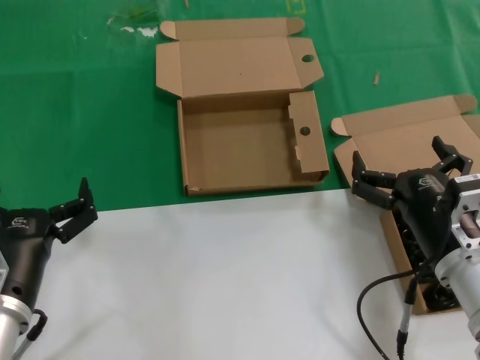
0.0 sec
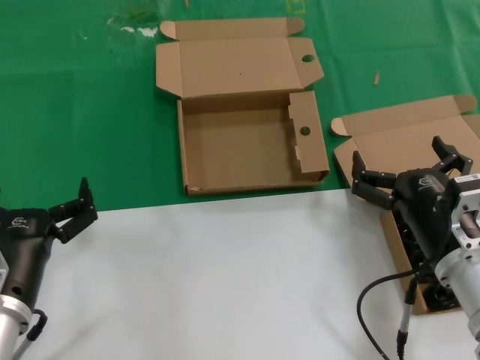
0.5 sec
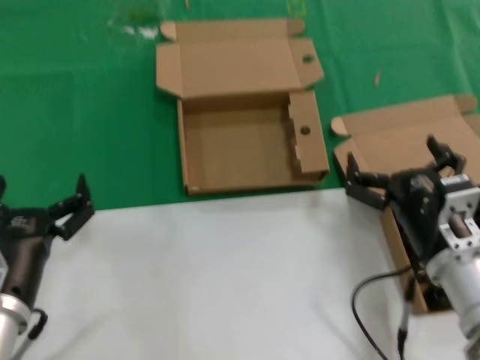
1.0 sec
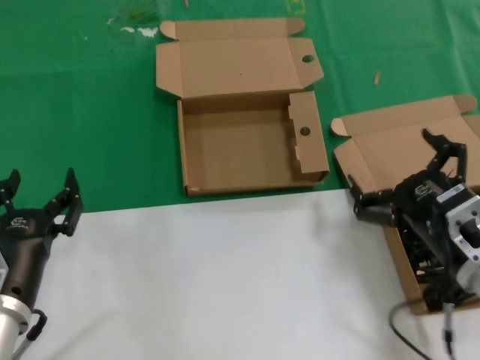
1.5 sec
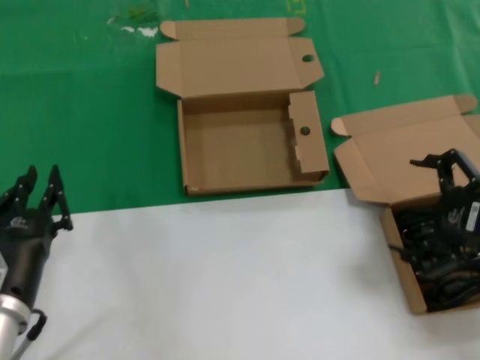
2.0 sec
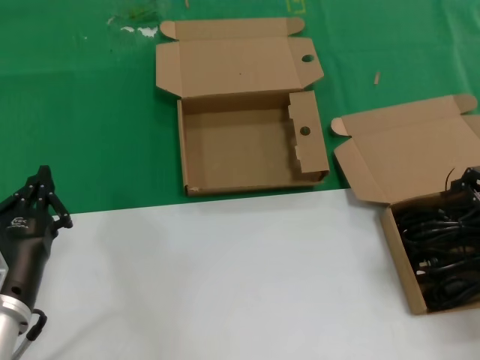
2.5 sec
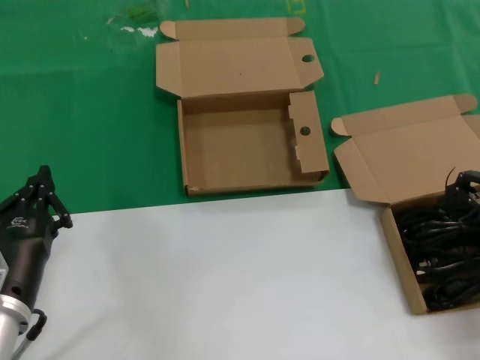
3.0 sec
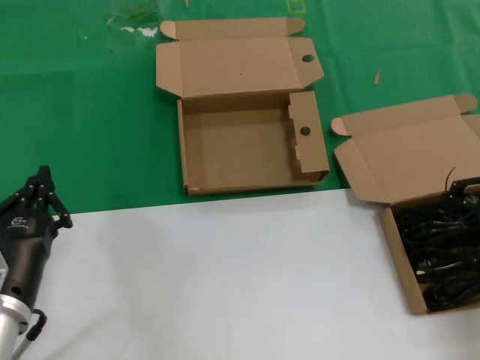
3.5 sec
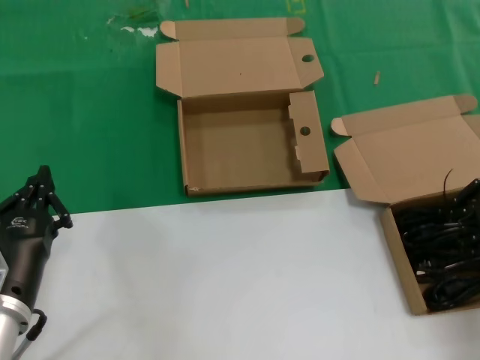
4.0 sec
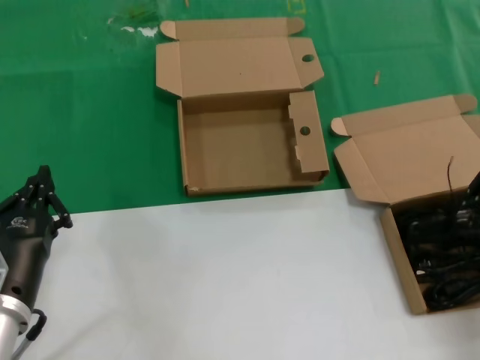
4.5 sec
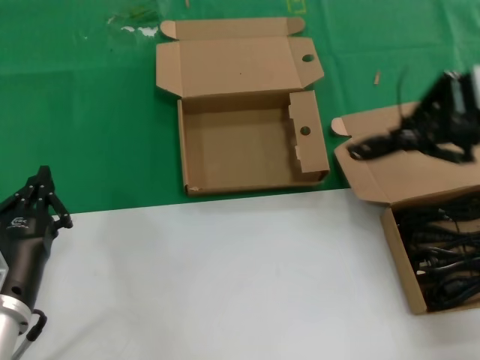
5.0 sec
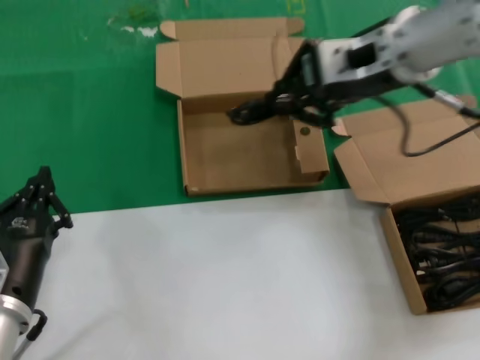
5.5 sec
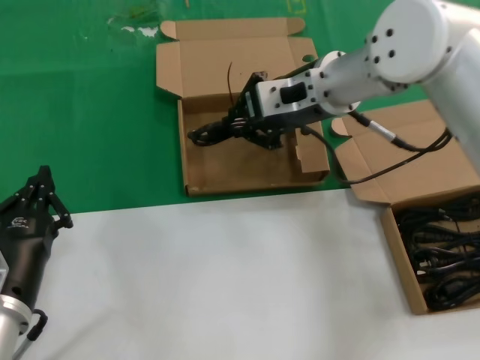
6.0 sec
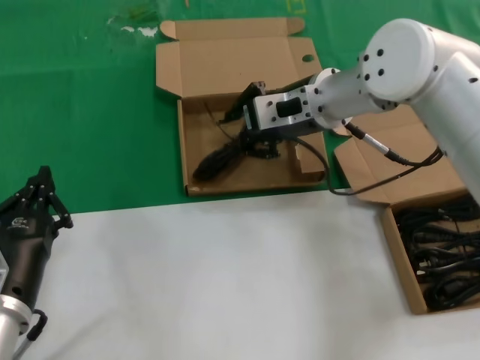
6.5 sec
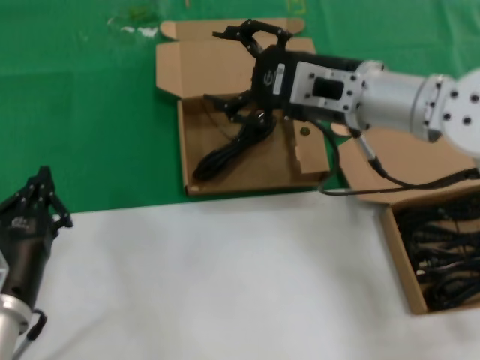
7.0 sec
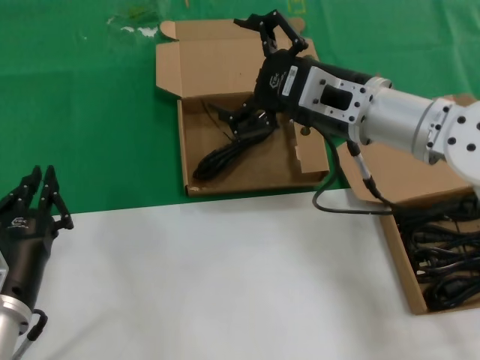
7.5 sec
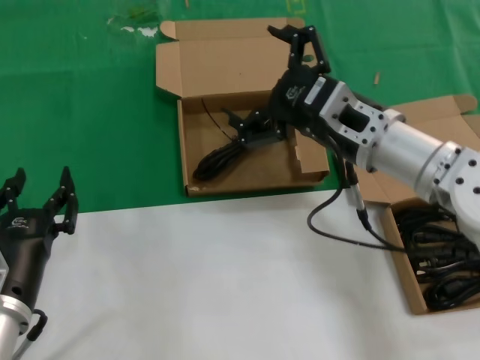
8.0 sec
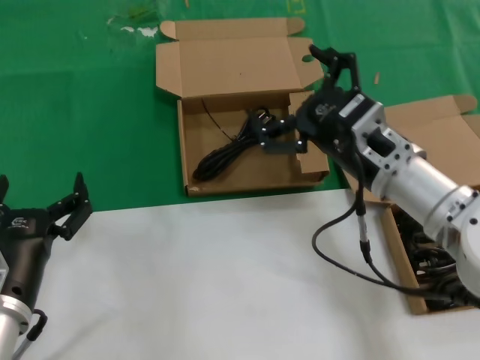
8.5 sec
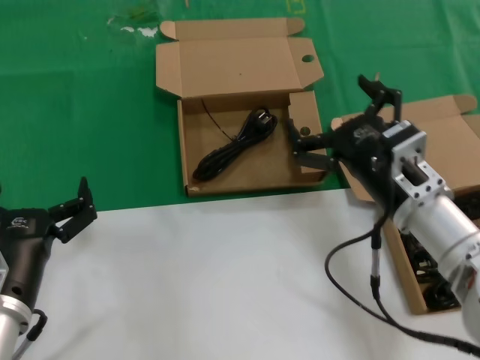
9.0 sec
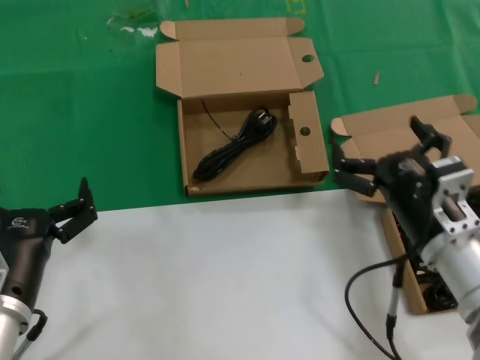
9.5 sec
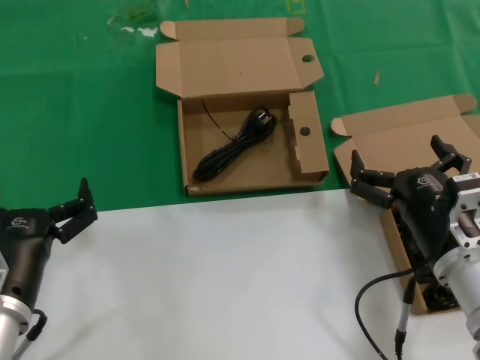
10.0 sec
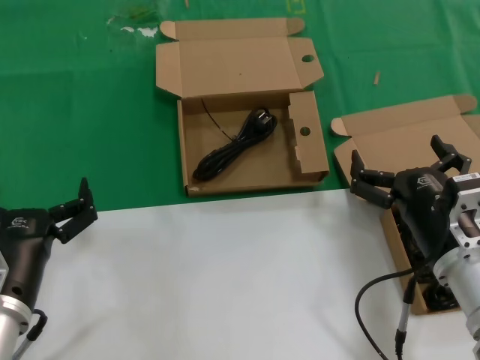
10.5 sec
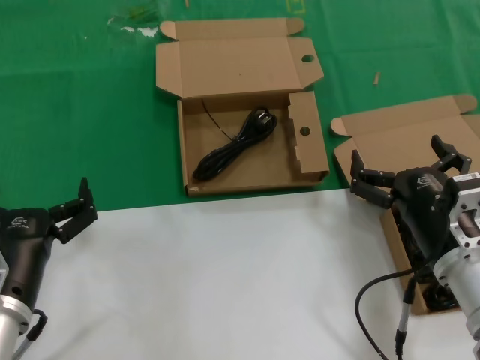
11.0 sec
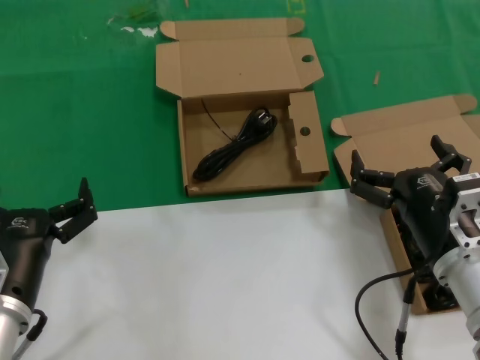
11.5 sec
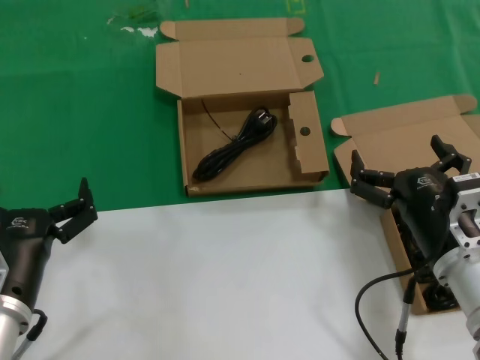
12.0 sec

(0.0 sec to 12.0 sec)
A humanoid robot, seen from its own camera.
Task of the whole recording: take the parts from the box containing them and put them into an empty box.
Step, 0.0 sec - 3.5 sec: Grasp the data cable.
Step, 4.5 sec - 6.5 sec: Place the data cable in the another box.
0.0 sec - 2.0 sec: The right hand goes some 15 cm upward and to the right.
2.0 sec - 4.0 sec: The right hand travels forward and to the right by roughly 10 cm.
4.0 sec - 6.0 sec: The right hand shifts some 30 cm to the left and forward.
6.0 sec - 8.0 sec: The right hand heads backward and downward, covering roughly 10 cm.
8.0 sec - 10.0 sec: The right hand shifts roughly 20 cm downward, backward and to the right.
10.0 sec - 12.0 sec: Both hands stay about where they are.

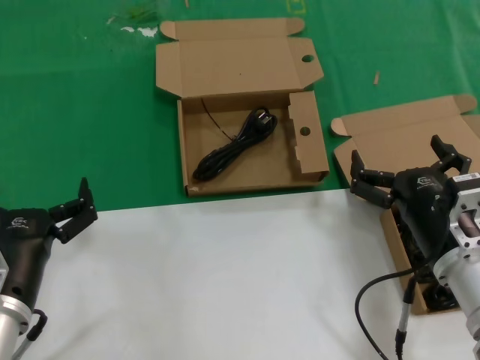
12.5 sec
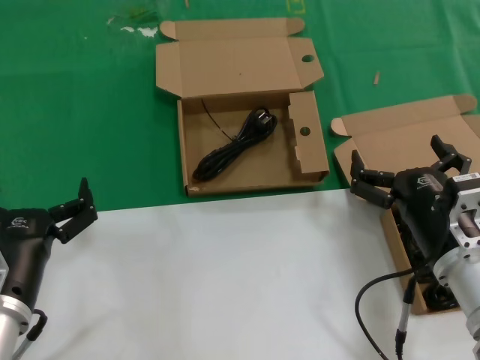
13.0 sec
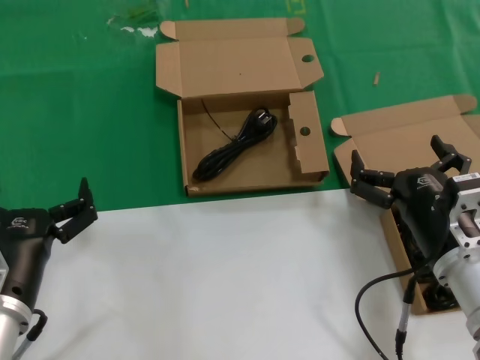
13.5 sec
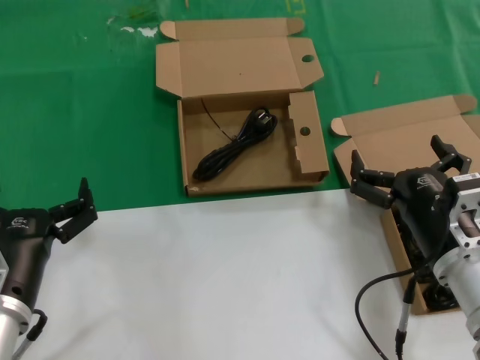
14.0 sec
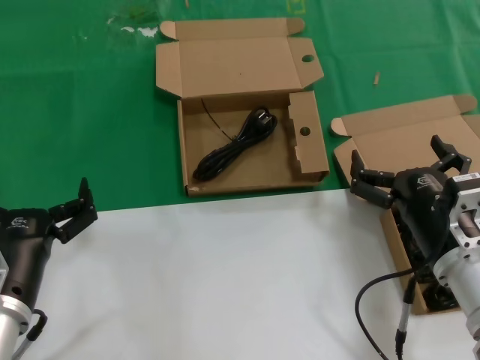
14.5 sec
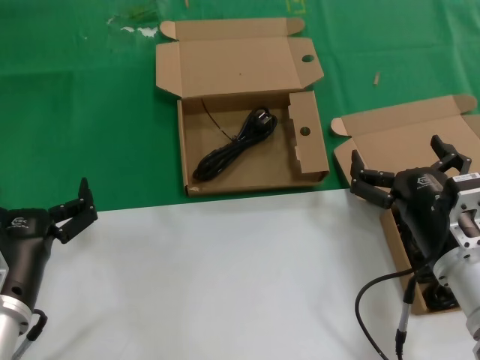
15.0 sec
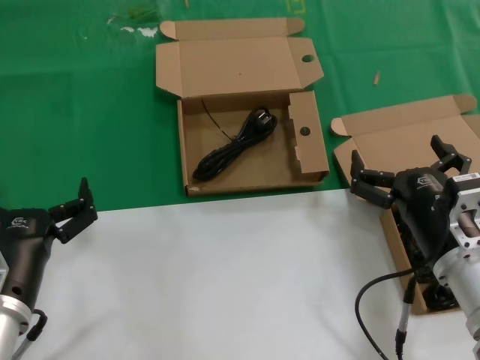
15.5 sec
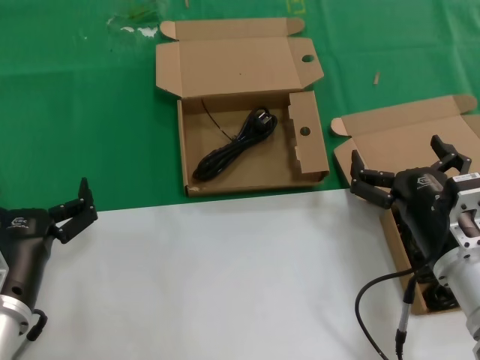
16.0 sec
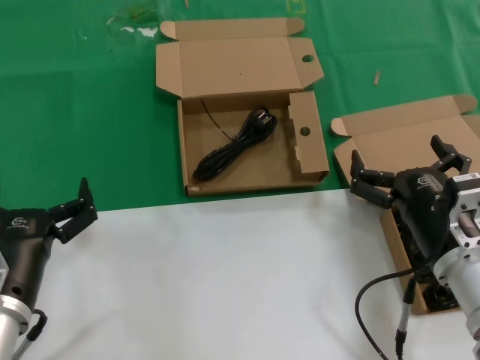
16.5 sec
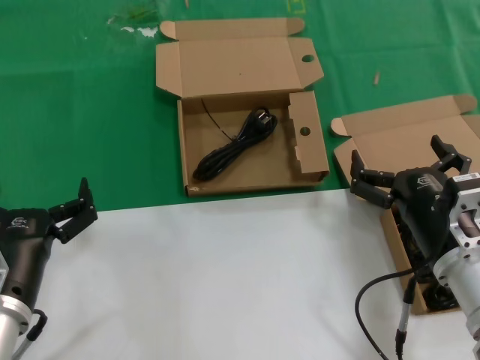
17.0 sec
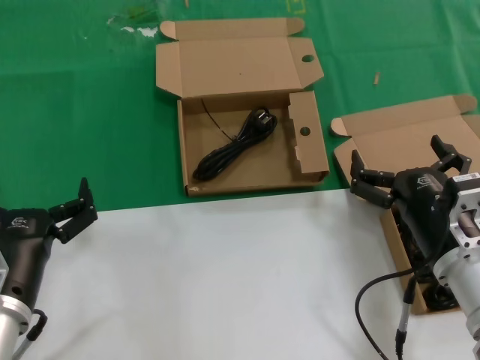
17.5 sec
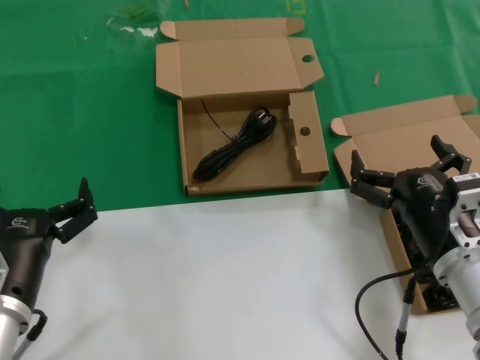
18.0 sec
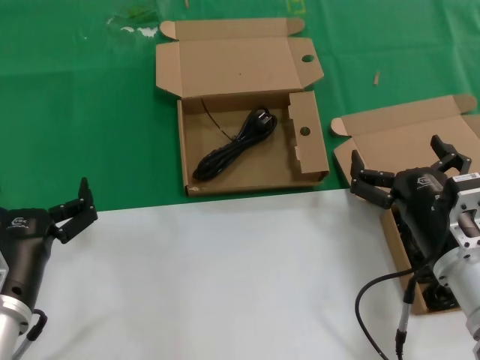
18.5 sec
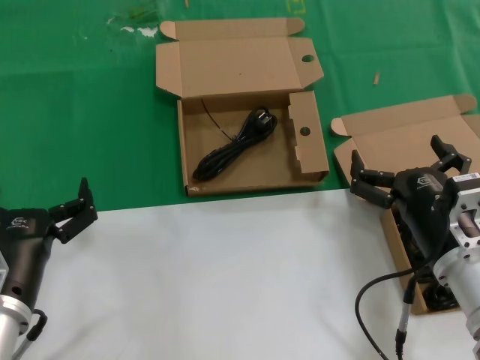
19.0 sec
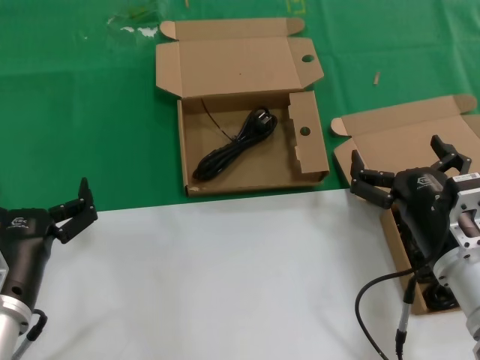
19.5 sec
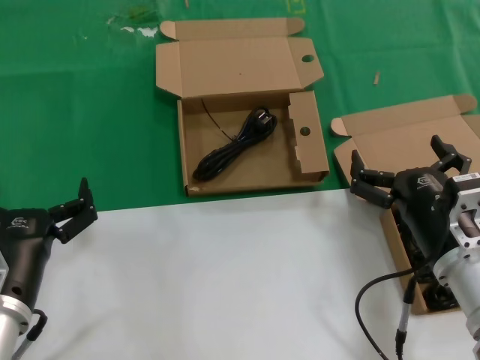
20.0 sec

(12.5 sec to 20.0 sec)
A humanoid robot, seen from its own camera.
Task of the whole recording: take the parts from the box containing them and put them into an empty box.
12.5 sec - 20.0 sec: Neither hand changes place.

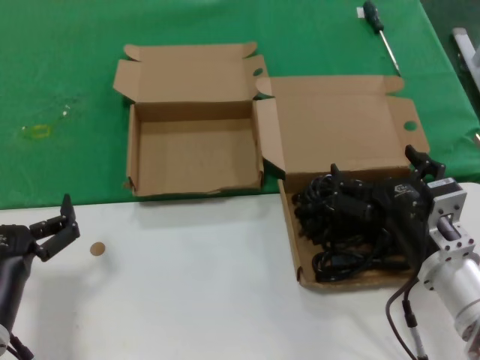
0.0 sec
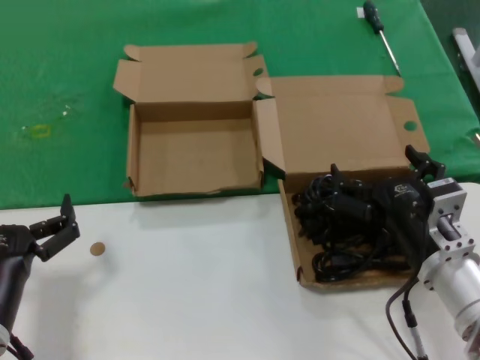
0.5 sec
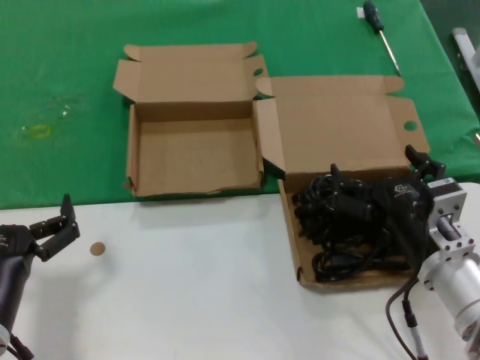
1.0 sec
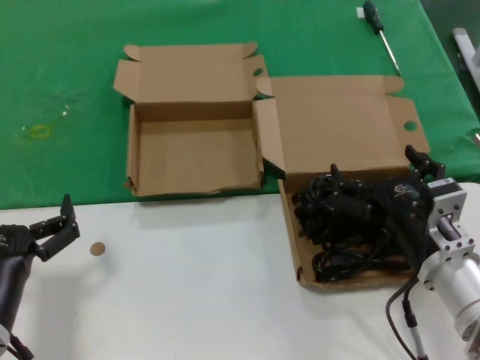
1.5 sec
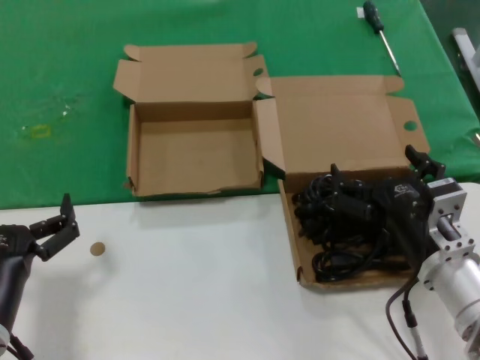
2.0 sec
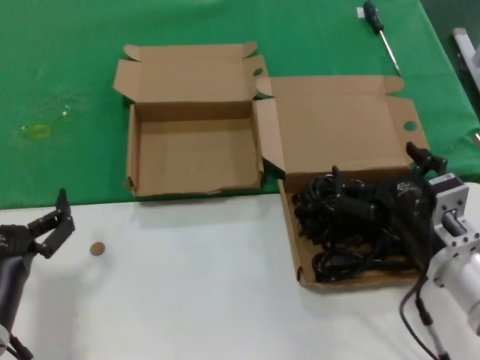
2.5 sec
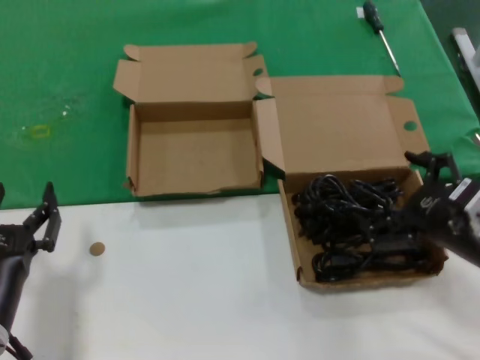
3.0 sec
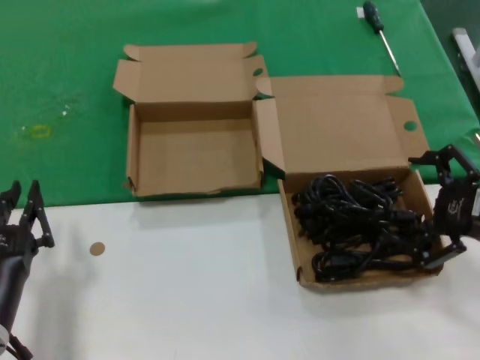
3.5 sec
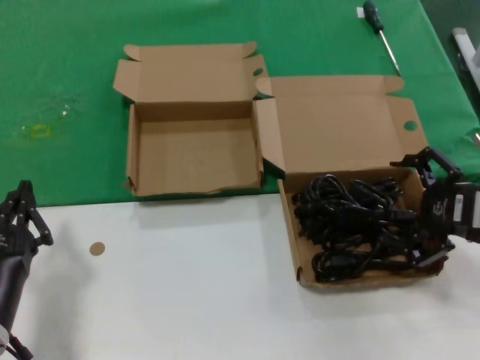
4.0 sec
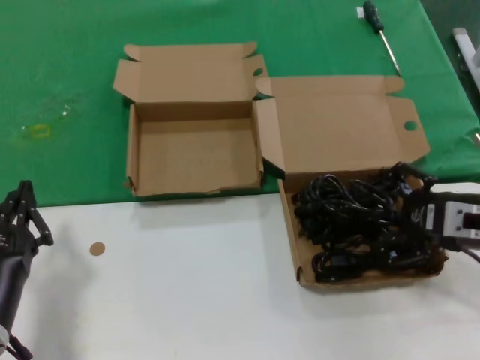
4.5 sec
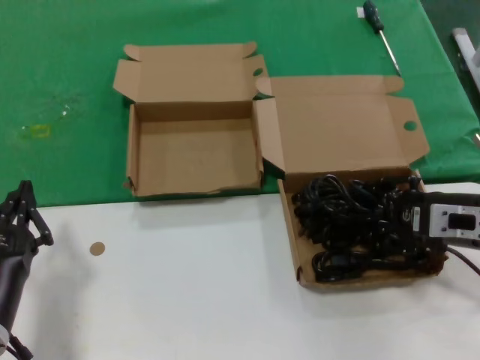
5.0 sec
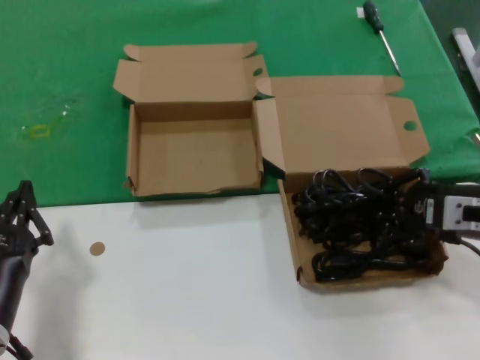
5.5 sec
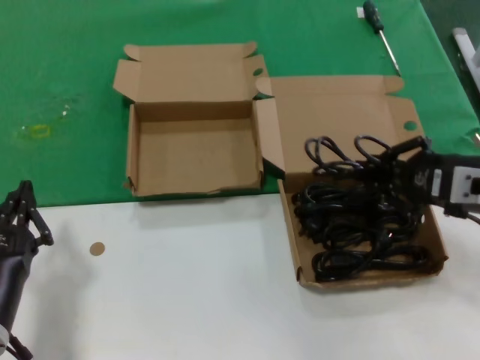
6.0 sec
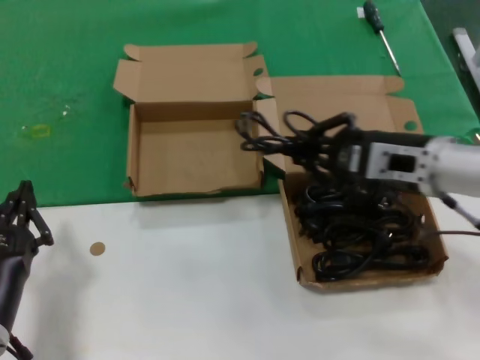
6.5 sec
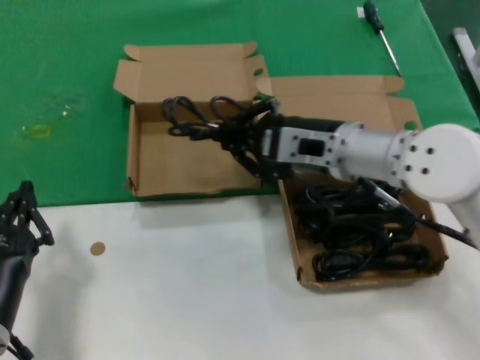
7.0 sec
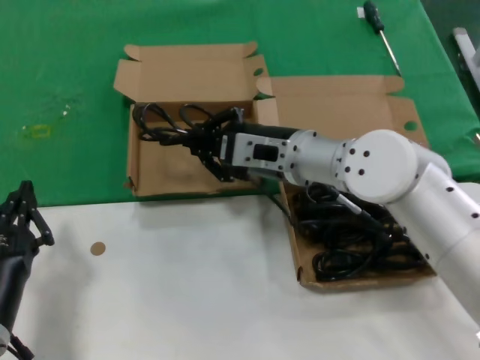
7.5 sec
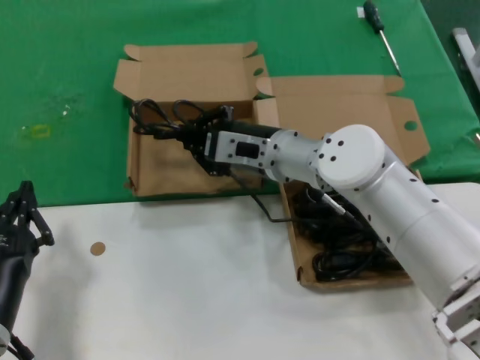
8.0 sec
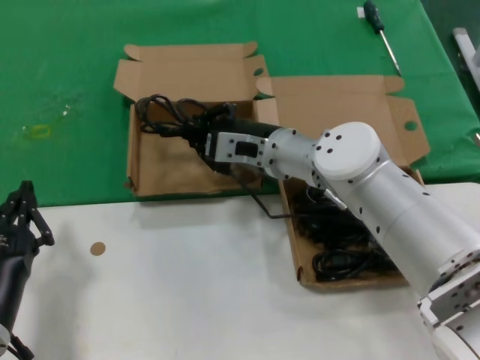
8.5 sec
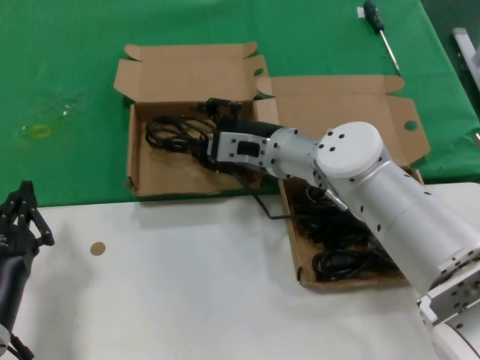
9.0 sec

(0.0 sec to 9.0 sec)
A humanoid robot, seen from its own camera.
Task of the whole recording: take the parts from the box containing them and put them into an empty box.
Step, 0.0 sec - 5.0 sec: Grasp the data cable.
0.0 sec - 2.0 sec: The two hands keep their place.
2.0 sec - 4.5 sec: The right hand travels to the right and upward by approximately 15 cm.
4.5 sec - 7.0 sec: The right hand goes roughly 20 cm to the left and forward.
7.0 sec - 9.0 sec: The right hand goes about 10 cm forward, to the left and downward.
